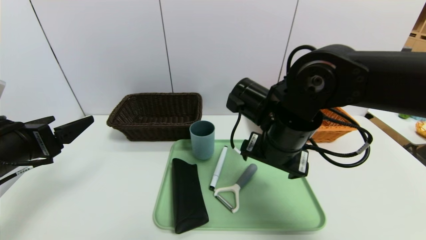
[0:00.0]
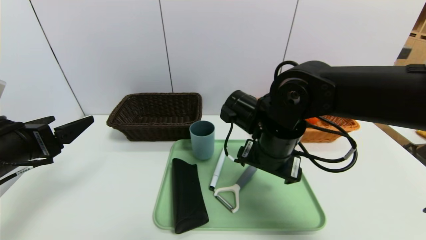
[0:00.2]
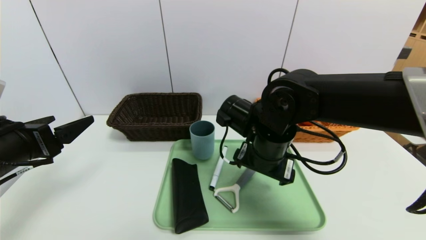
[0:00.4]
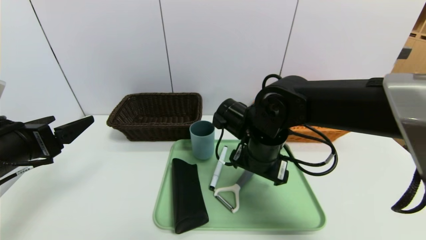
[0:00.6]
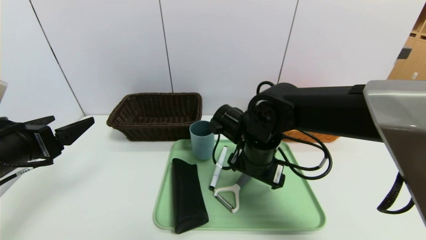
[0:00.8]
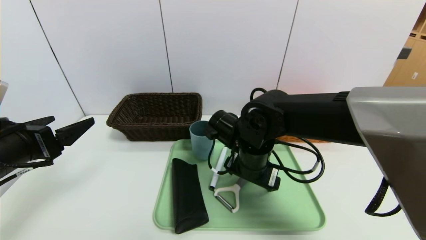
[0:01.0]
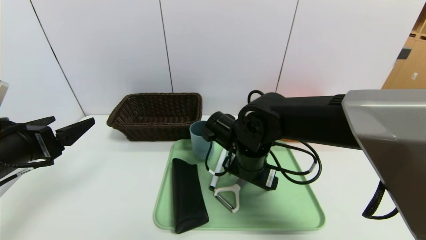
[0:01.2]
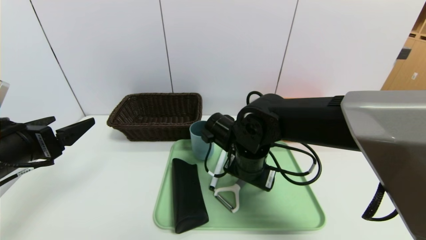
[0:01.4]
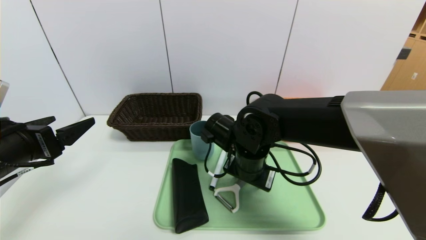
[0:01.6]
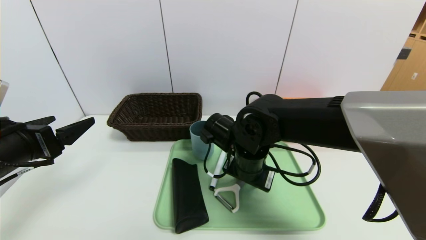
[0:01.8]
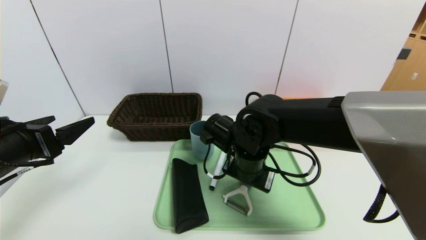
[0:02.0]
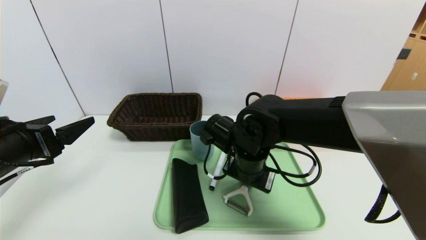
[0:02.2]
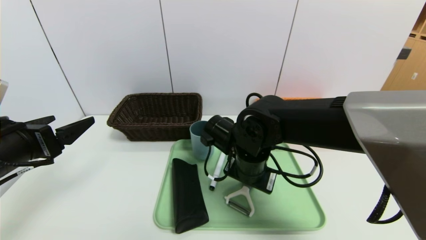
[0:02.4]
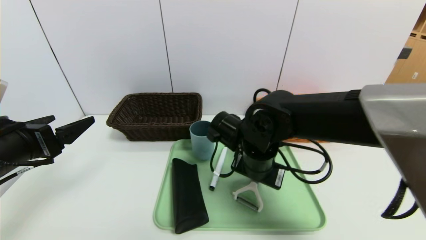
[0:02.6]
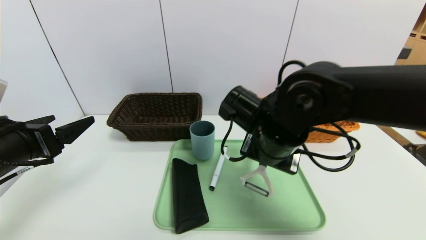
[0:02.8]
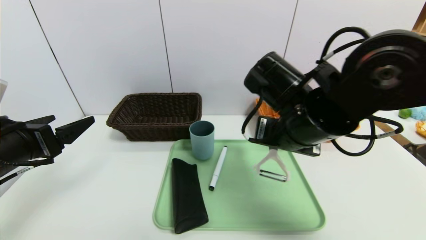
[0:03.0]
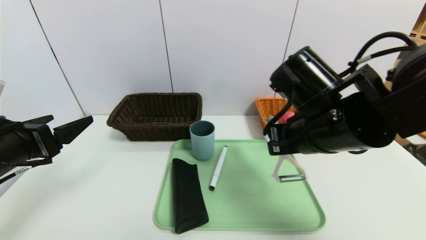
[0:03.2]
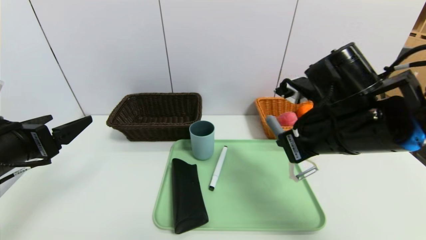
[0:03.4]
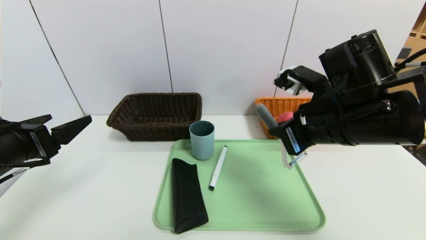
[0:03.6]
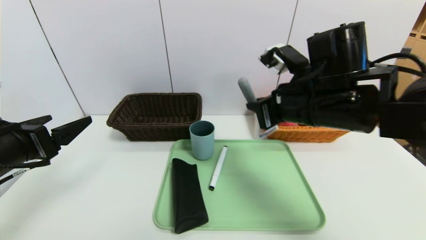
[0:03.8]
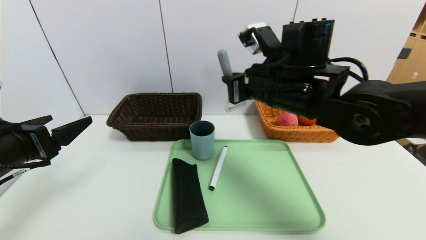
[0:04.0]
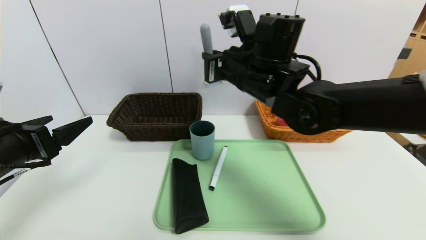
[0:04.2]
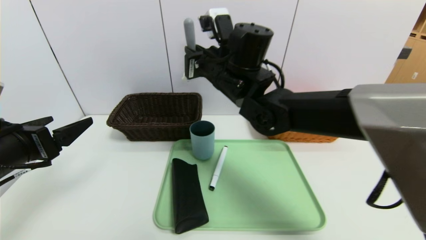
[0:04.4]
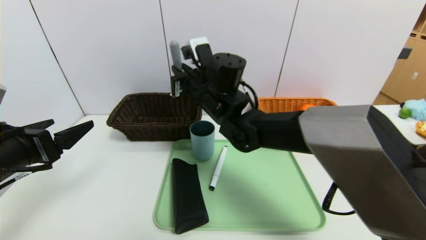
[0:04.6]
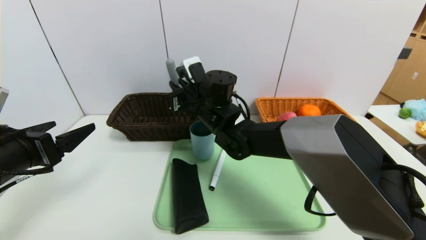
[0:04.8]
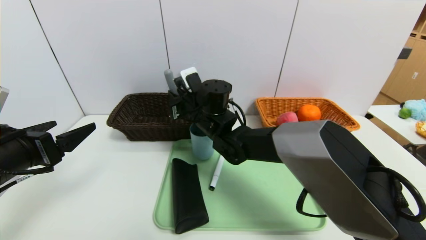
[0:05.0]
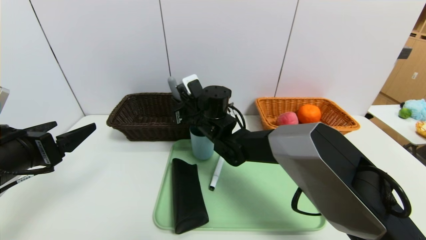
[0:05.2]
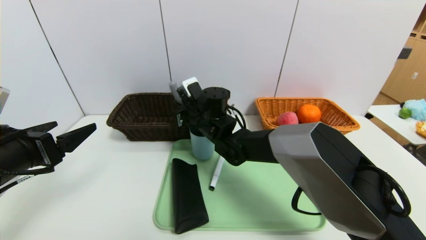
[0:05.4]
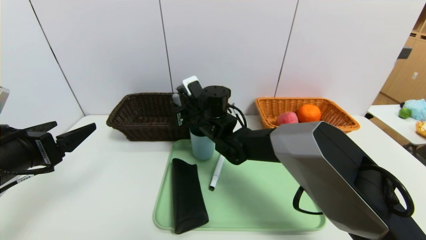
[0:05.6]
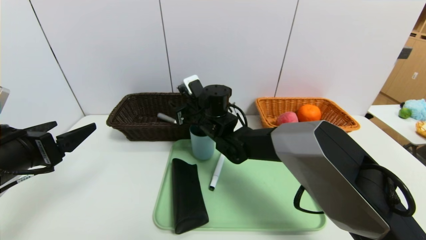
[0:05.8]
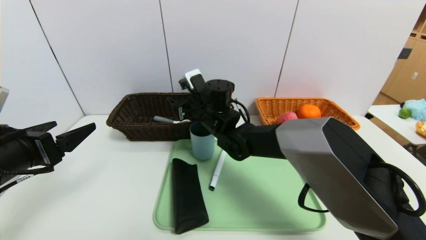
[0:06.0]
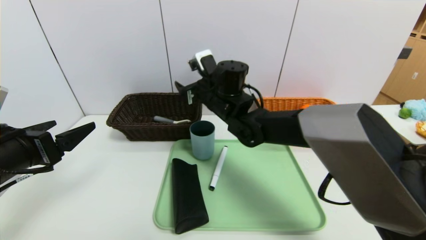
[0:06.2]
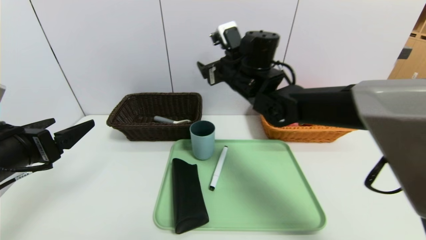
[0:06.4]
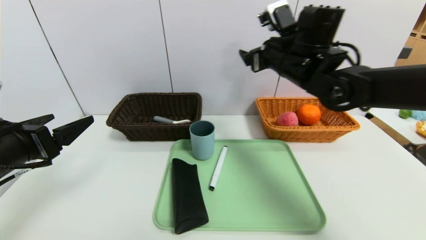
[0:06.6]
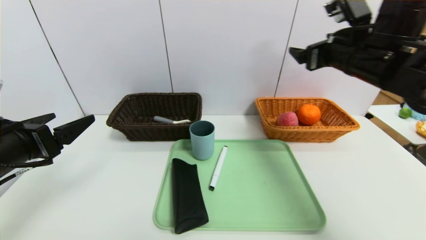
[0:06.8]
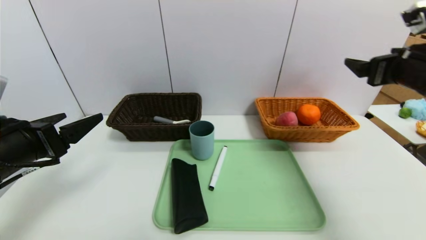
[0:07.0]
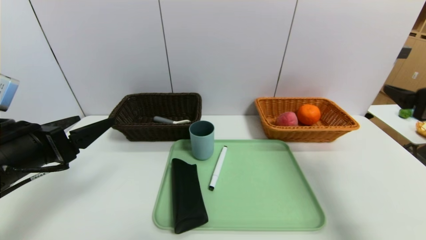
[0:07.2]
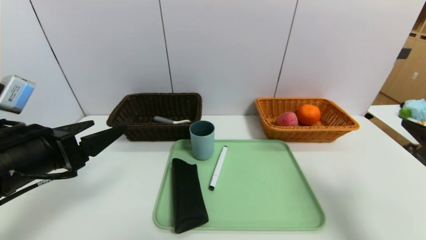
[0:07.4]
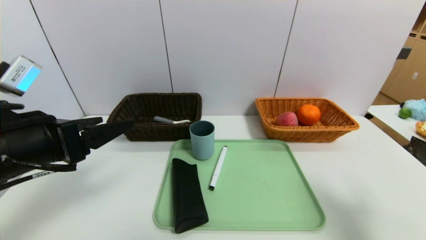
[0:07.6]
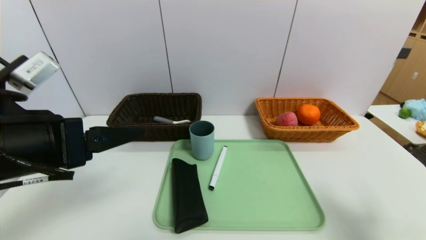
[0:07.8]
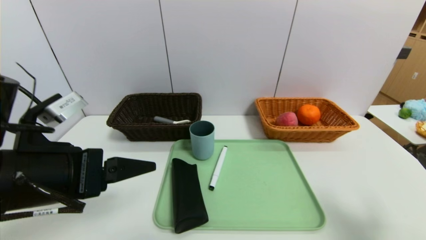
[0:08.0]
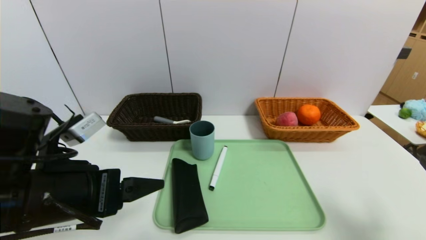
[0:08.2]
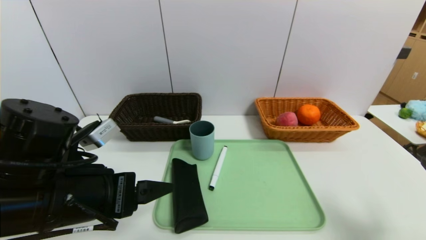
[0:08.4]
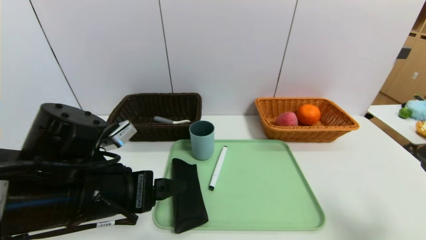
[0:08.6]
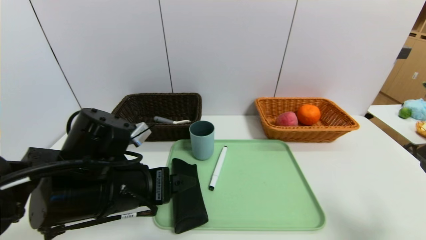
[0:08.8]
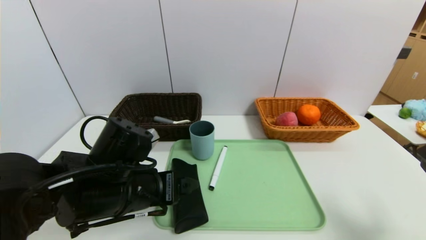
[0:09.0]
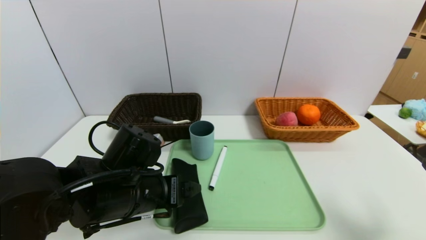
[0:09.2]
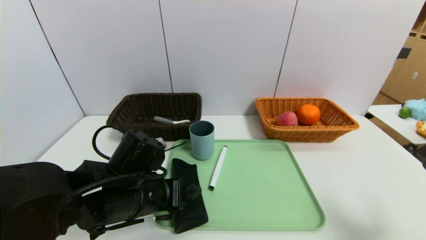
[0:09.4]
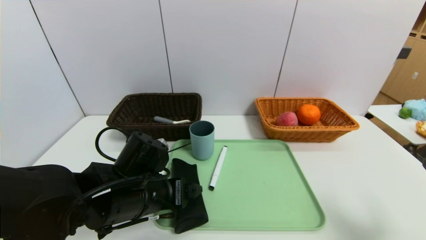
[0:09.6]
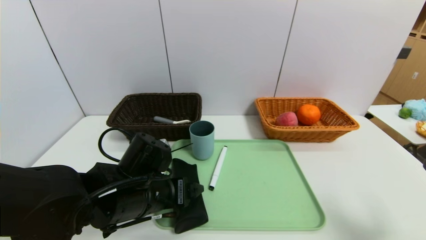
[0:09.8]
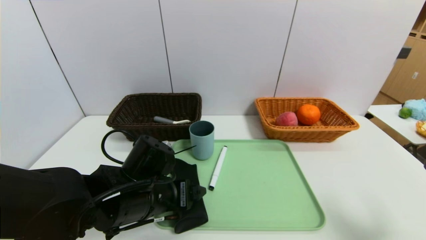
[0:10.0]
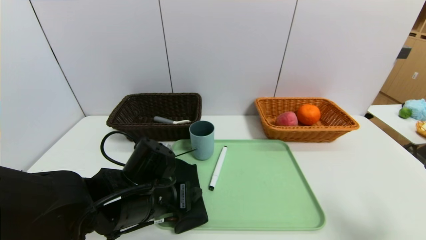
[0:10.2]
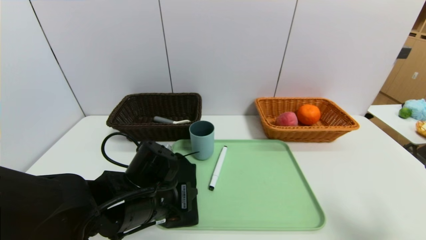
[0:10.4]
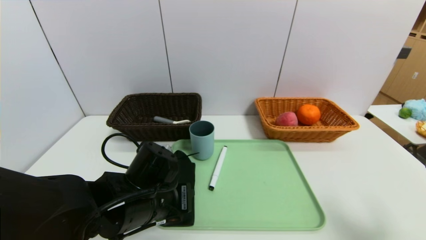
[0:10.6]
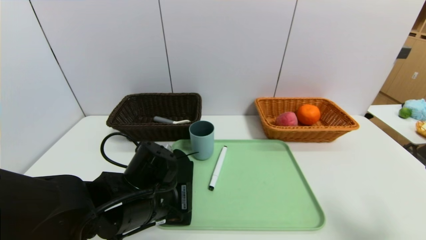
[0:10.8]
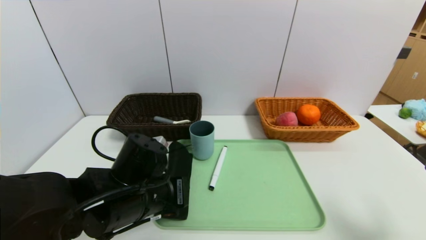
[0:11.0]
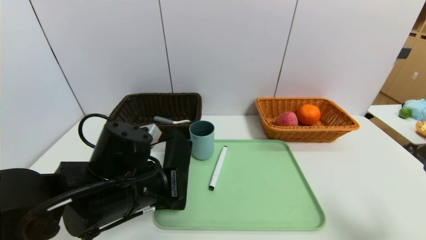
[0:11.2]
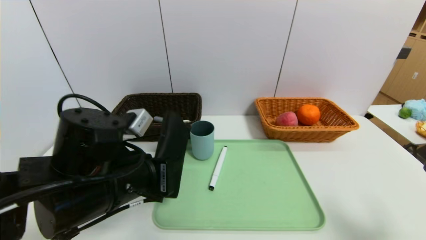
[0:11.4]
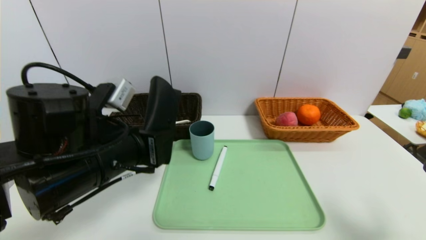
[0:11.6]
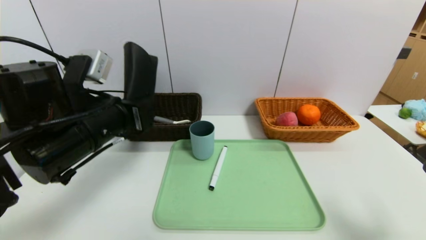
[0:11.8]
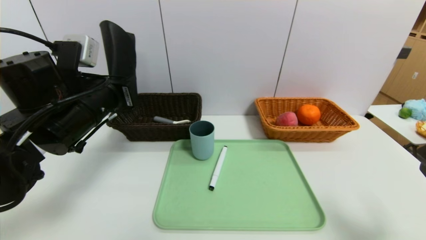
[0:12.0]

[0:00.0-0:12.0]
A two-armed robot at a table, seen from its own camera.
Task of the whole recording: place the food in the right basket with the right gripper, and place the non food items in the left basket with the left gripper.
0:00.0 to 0:01.6: The right gripper goes roughly 5 cm downward, and closes.
0:01.6 to 0:03.0: The right gripper is displaced upward and to the right by some 15 cm, and closes up.
0:03.0 to 0:04.4: The right gripper shifts some 15 cm forward and to the left.
0:04.4 to 0:06.0: The right gripper travels downward by approximately 10 cm, and opens its fingers.
0:06.0 to 0:07.6: The right gripper travels to the right and backward by roughly 50 cm. Meanwhile the left gripper is displaced to the right by approximately 5 cm.
0:07.6 to 0:09.0: The left gripper travels to the right and downward by roughly 15 cm.
0:09.0 to 0:10.4: The left gripper ends up approximately 5 cm from where it was, and closes its fingers.
0:10.4 to 0:12.0: The left gripper heads upward, to the left and forward, covering approximately 15 cm, and closes.

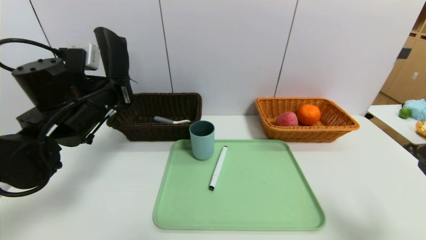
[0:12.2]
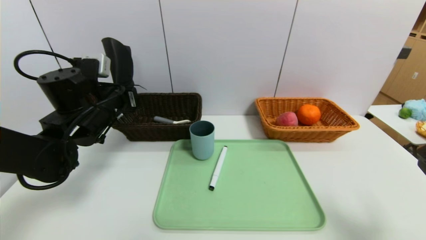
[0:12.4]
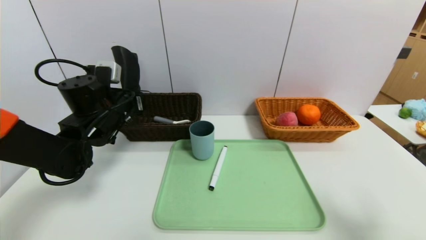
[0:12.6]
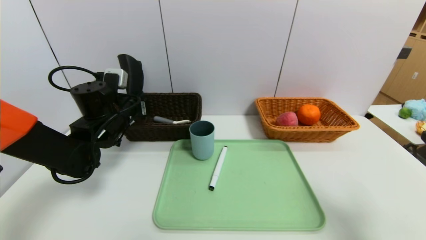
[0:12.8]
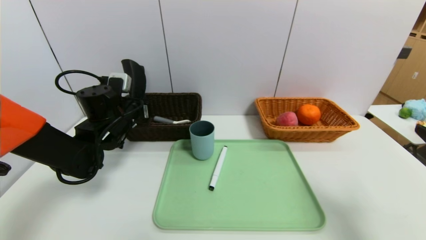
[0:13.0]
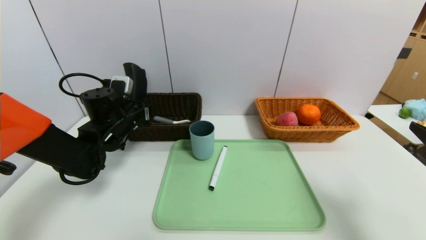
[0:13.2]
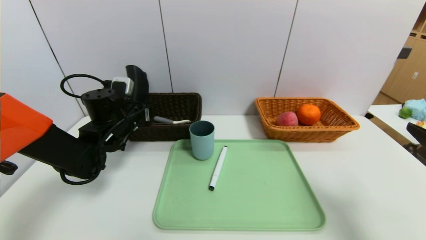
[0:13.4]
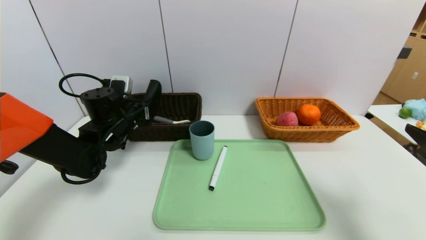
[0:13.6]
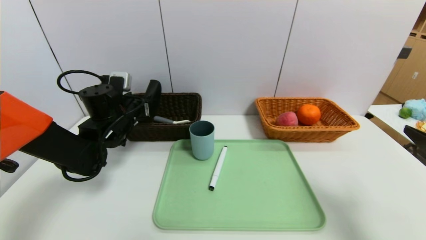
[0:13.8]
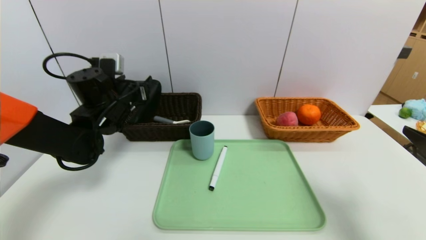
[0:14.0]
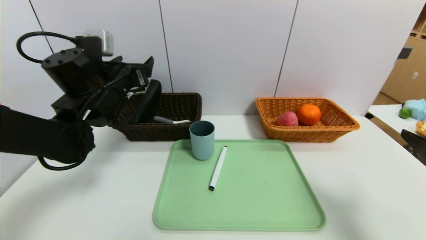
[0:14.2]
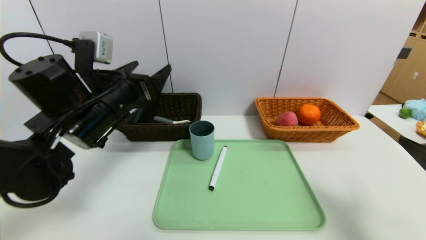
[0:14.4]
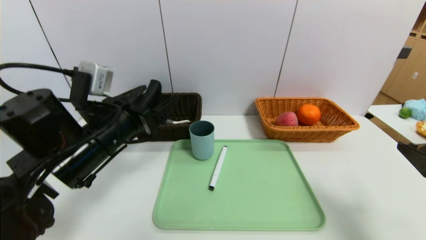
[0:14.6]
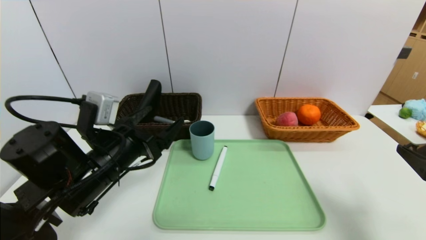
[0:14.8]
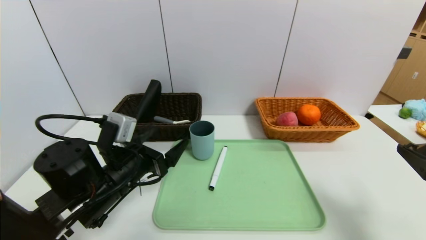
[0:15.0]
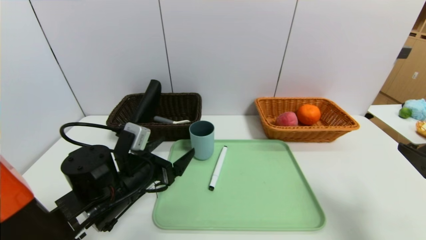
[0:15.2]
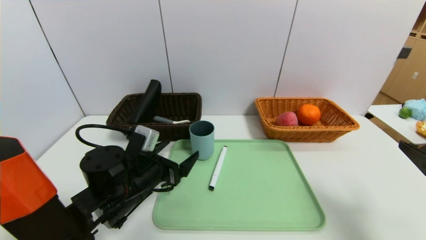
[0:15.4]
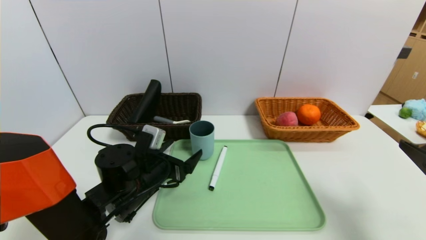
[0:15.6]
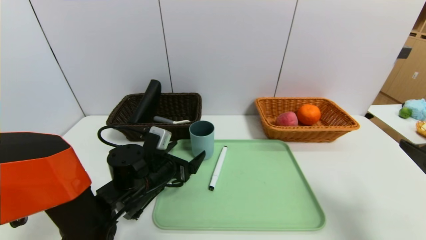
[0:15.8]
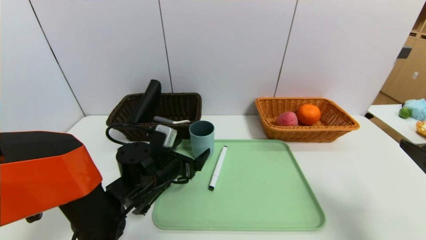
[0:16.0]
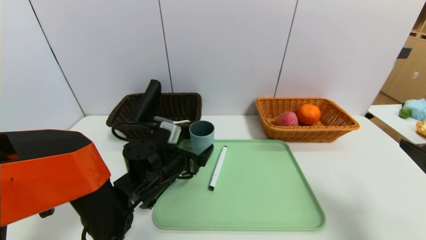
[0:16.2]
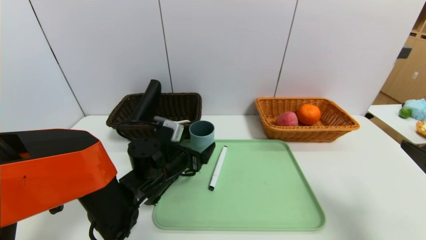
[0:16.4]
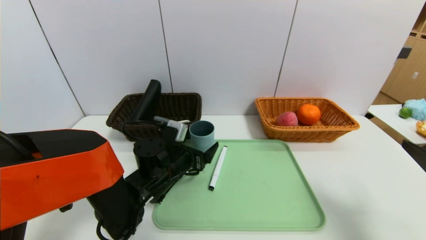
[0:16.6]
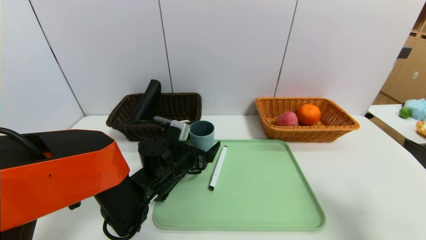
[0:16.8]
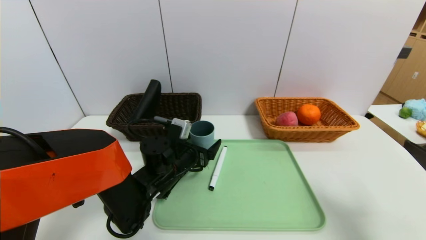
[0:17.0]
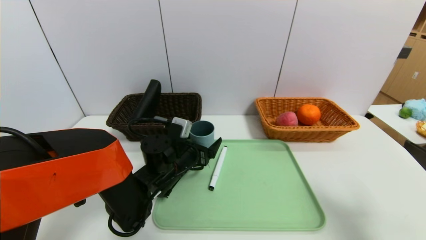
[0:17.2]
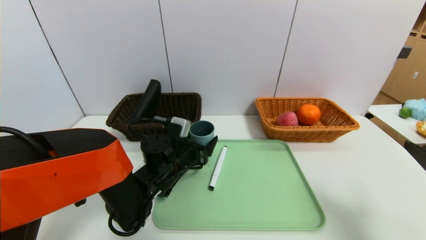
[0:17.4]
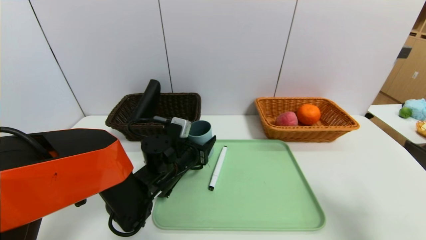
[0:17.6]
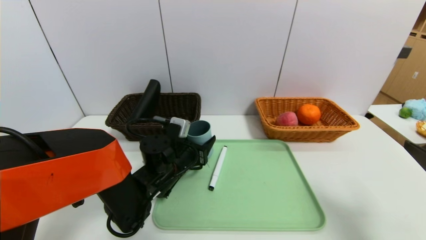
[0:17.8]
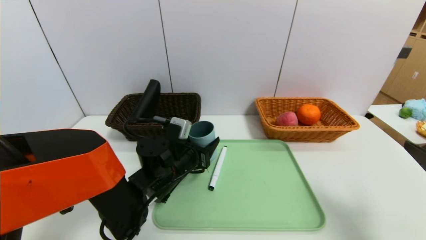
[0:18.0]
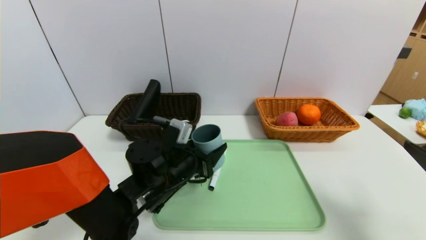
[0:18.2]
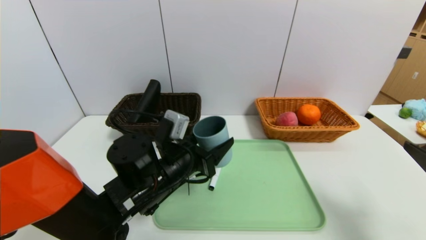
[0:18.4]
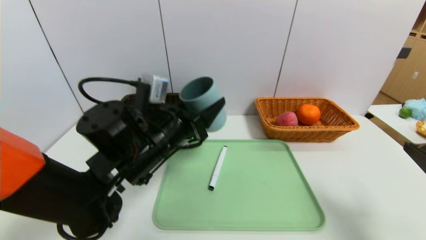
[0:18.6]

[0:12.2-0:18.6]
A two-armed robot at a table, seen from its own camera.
Task of the whole recording: place the food in the right basket with the right gripper, and place the non food items in the left basket with the left gripper.
Step, 0:12.2 to 0:14.4: Grasp the glasses case and put it in the left basket.
0:12.2 to 0:13.8: The left gripper moves forward and downward, about 10 cm, and opens its fingers. The right gripper moves roughly 5 cm.
0:13.8 to 0:15.4: The left gripper goes roughly 15 cm backward, to the right and downward.
0:15.4 to 0:17.0: The left gripper shifts about 10 cm forward and to the right.
0:17.0 to 0:18.6: The left gripper is displaced upward by approximately 10 cm, and closes its fingers.
